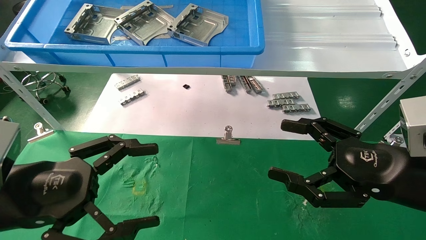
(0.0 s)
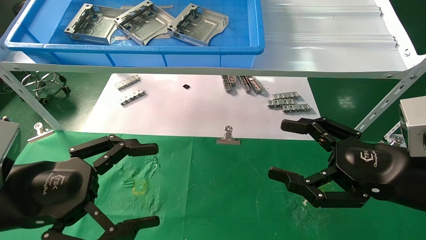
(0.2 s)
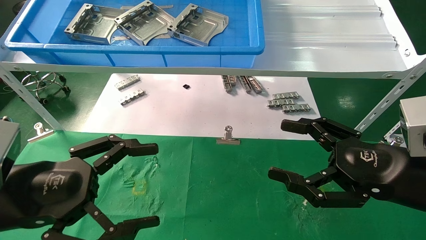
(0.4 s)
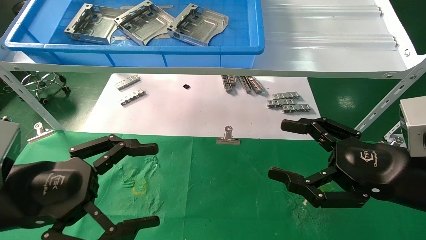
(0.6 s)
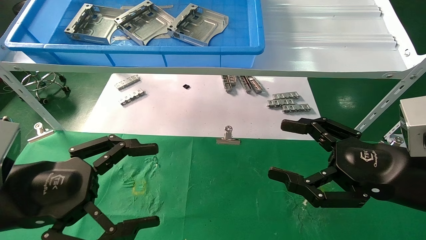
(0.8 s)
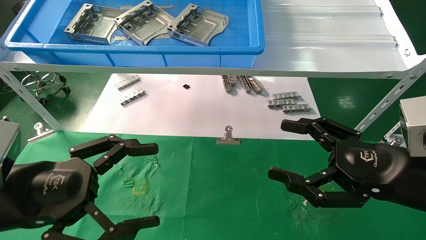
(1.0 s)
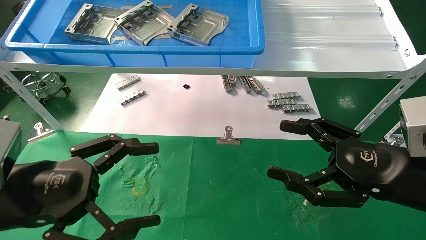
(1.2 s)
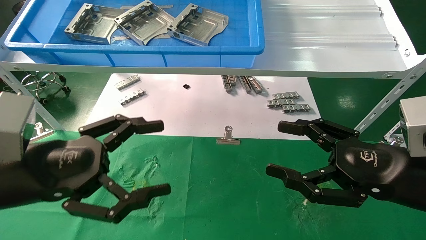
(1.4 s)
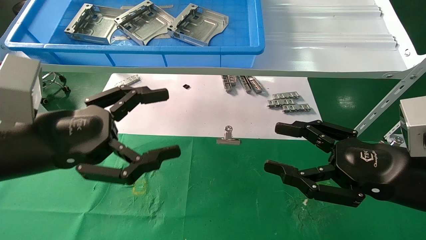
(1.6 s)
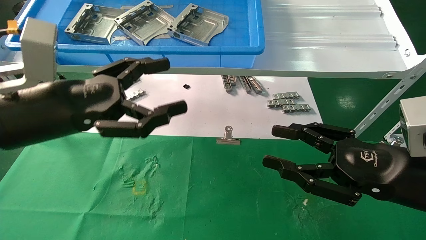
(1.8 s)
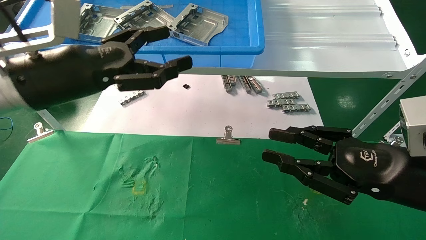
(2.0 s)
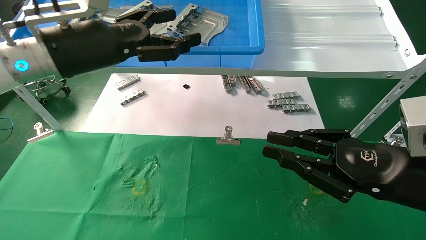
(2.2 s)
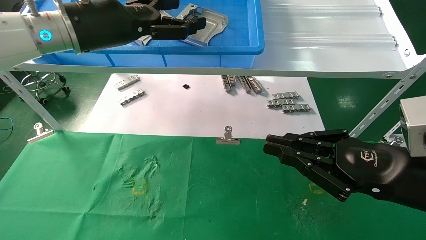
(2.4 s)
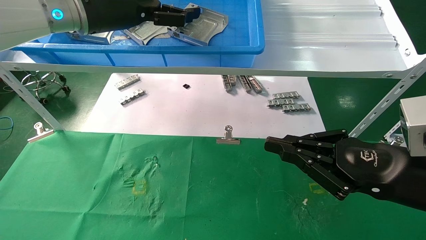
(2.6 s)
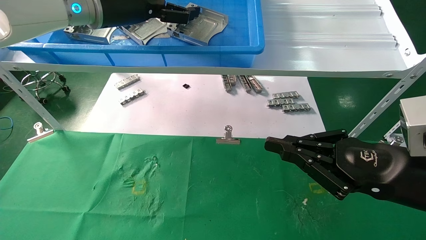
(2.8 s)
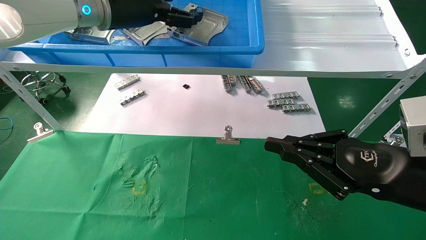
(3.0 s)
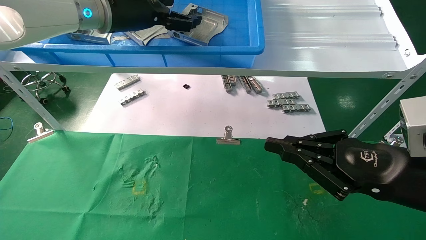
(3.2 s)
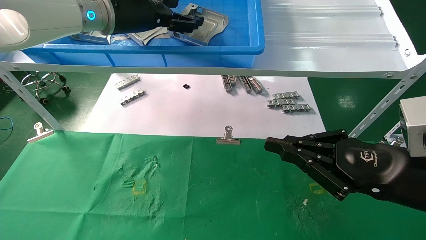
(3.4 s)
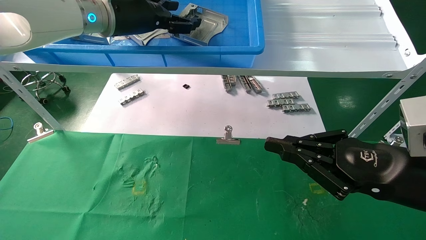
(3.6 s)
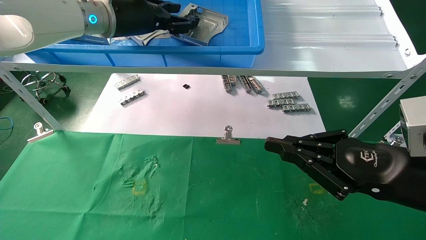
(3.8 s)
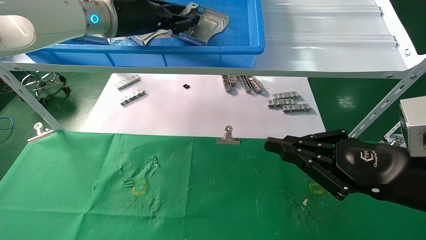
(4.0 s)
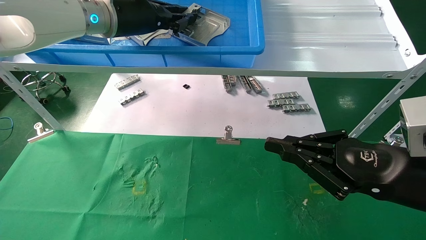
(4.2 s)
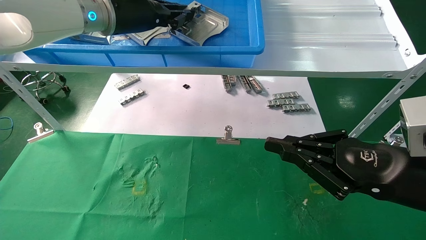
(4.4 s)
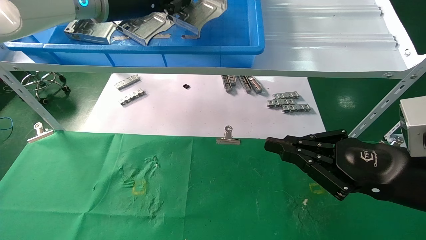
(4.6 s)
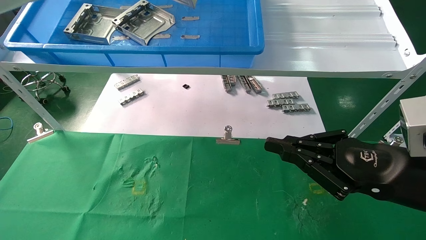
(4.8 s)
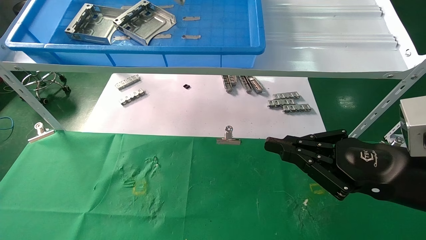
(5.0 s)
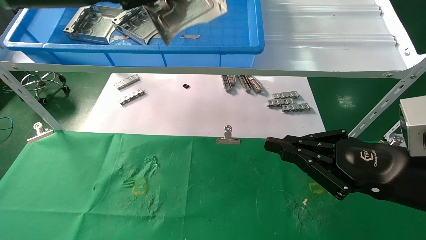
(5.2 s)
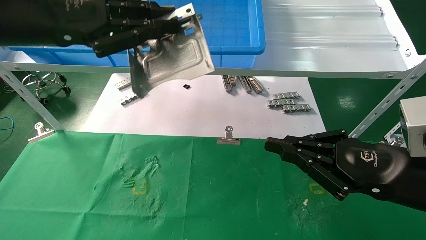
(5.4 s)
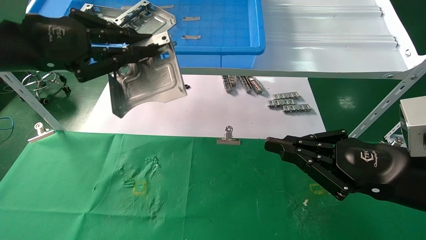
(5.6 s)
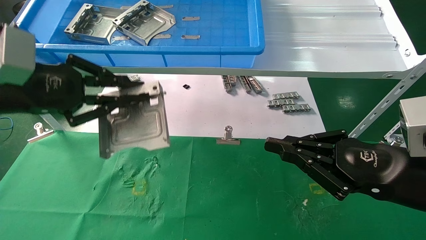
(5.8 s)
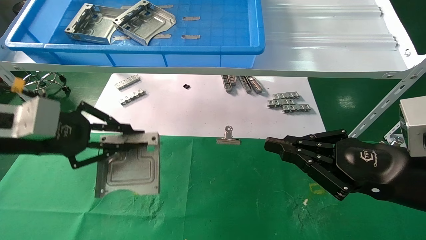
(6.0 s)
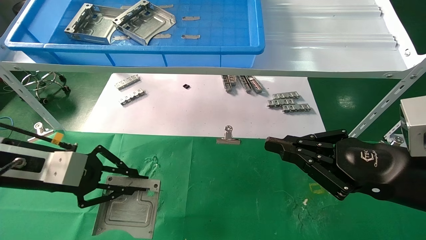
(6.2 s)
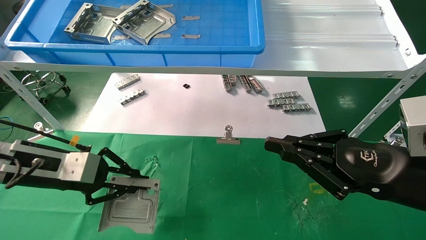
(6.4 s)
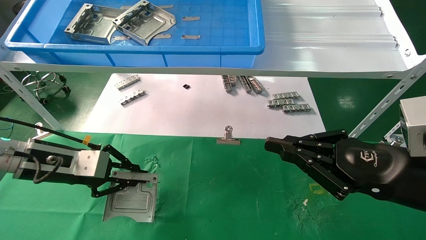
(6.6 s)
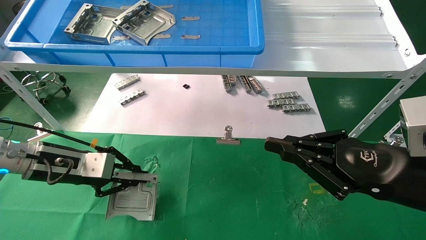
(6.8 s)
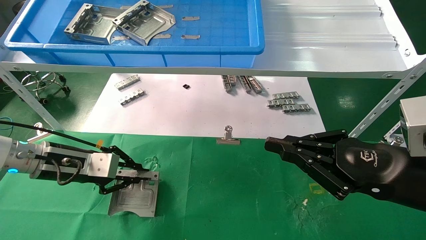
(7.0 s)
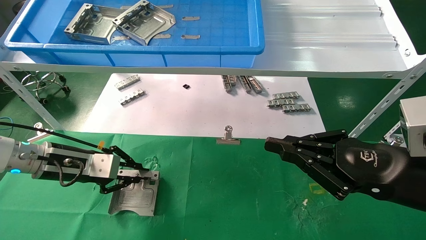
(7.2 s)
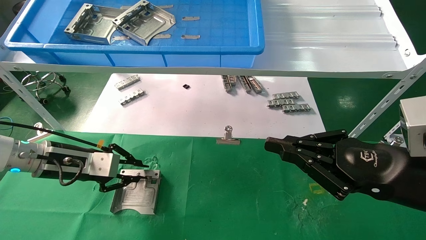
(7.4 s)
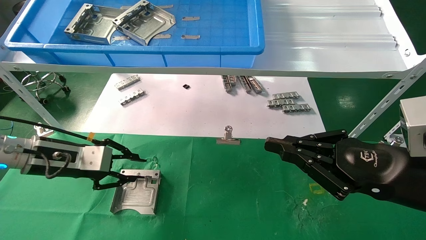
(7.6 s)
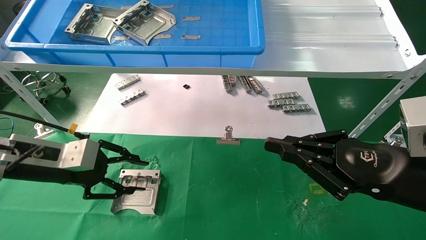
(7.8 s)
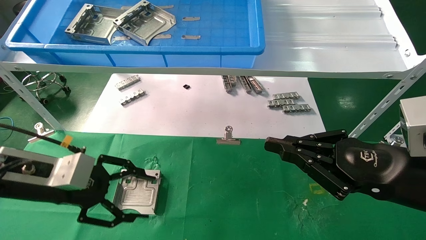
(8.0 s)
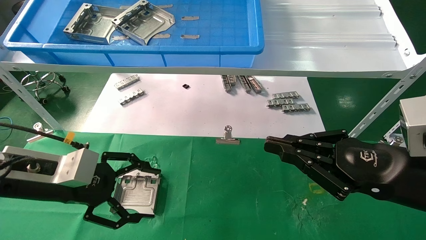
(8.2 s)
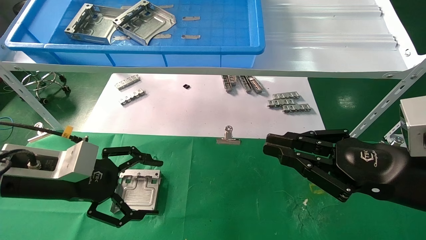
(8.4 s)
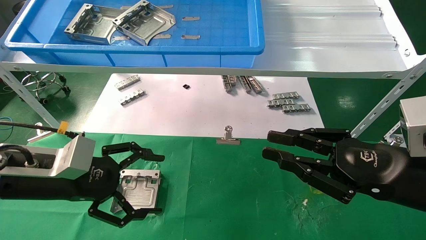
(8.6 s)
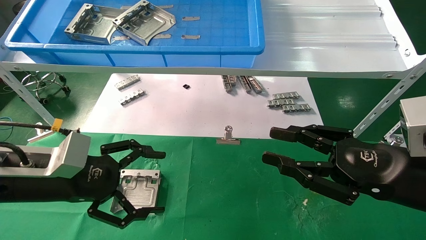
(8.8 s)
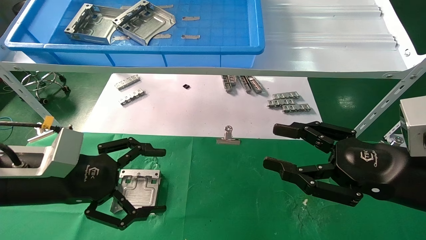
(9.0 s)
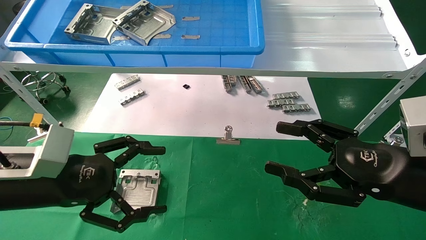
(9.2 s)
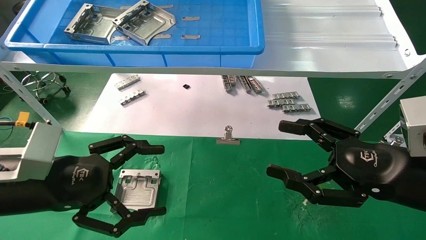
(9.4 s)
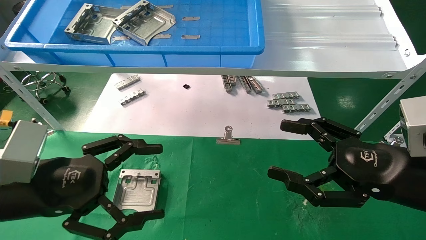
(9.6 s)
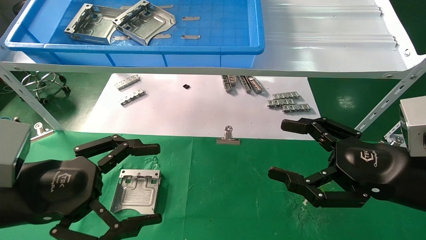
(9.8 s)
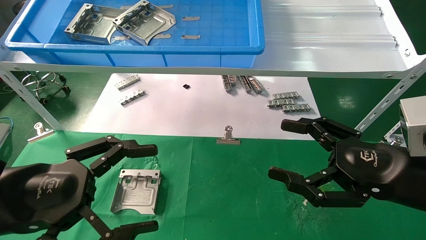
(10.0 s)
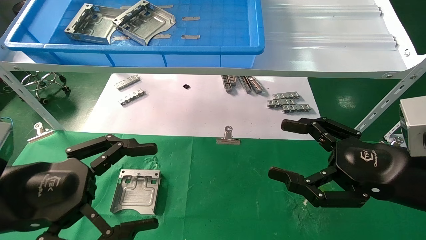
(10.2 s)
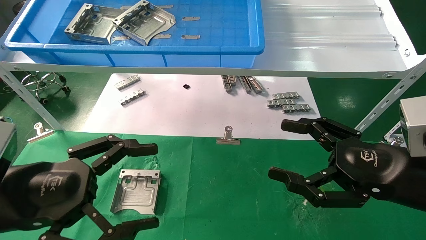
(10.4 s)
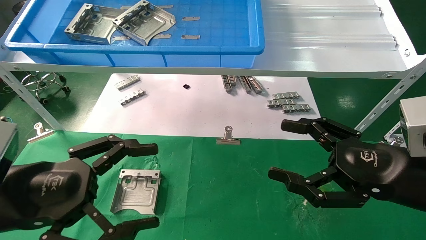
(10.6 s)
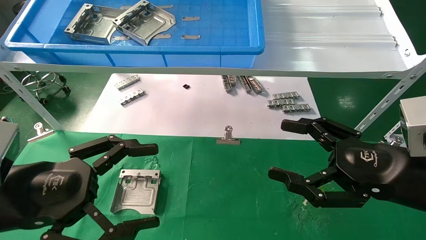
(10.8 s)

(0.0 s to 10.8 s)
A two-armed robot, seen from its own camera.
Task of the whole recording: use the mechanical arm to pick up the parts and place them on the table.
Step, 1.6 s - 4.4 s: Pick up the hard drive bracket from the feeding area.
Step, 4.6 s - 7.4 s: Place the hard drive bracket into the box.
0.0 s - 1.6 s: The left gripper ends up approximately 5 cm from where it was.
1.6 s - 3.0 s: The right gripper closes. The left gripper moves forward, upward and to the right, roughly 25 cm.
3.0 s - 4.6 s: The left gripper closes.
4.6 s - 6.2 s: The left gripper is displaced downward, to the left and backward by about 30 cm.
7.8 s - 9.2 s: The left gripper moves backward, approximately 10 cm, and opens. The right gripper opens.
9.2 s - 10.8 s: The left gripper moves backward, about 5 cm; the right gripper opens its fingers.
